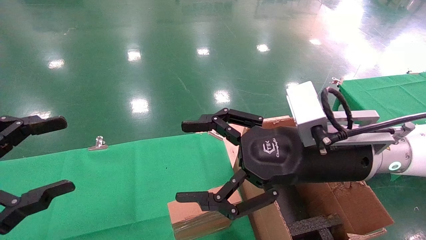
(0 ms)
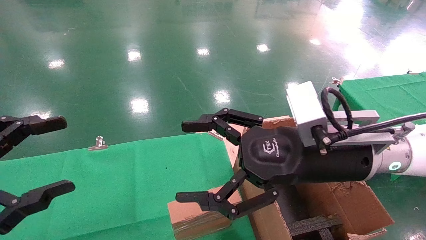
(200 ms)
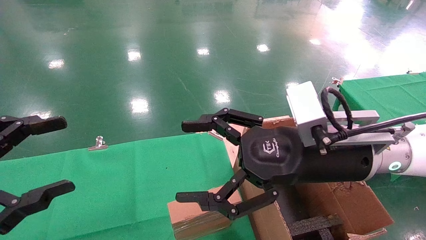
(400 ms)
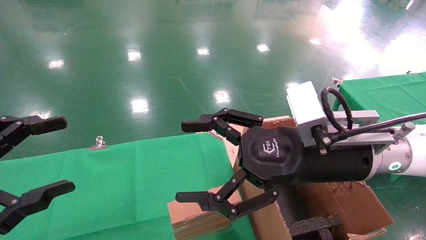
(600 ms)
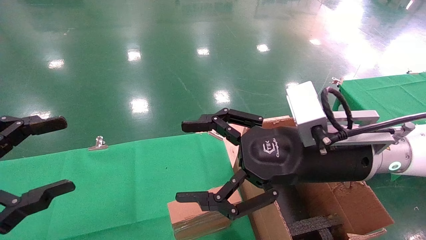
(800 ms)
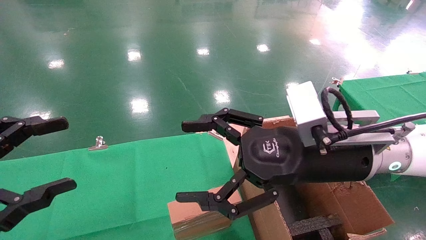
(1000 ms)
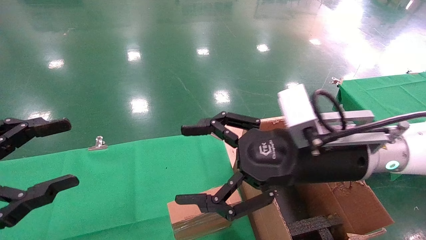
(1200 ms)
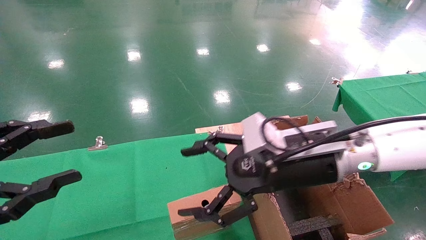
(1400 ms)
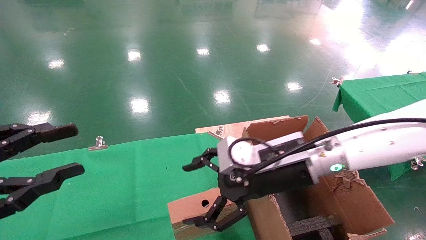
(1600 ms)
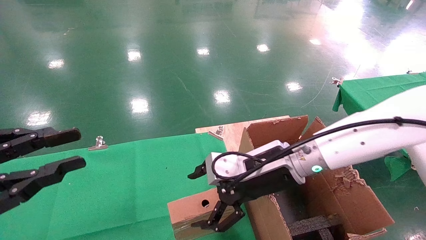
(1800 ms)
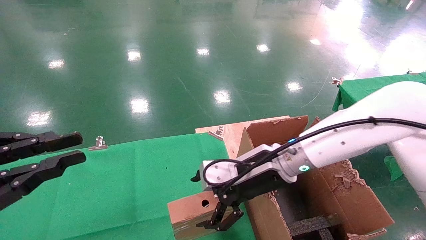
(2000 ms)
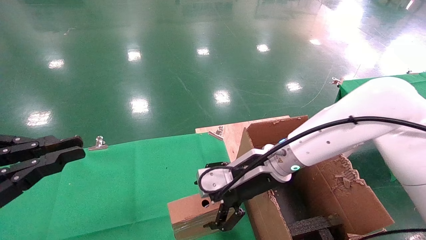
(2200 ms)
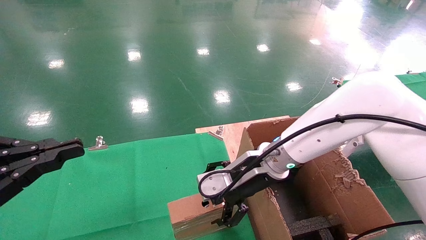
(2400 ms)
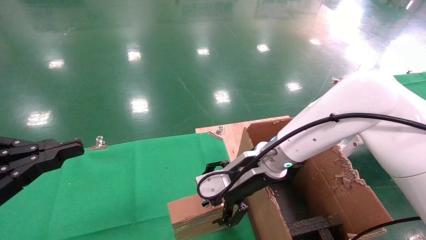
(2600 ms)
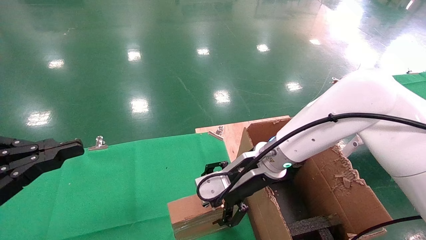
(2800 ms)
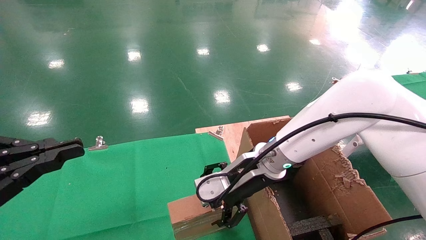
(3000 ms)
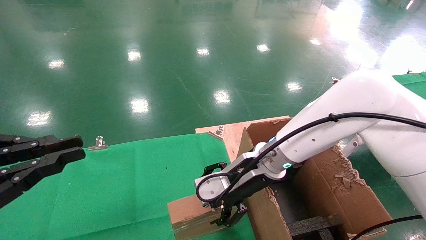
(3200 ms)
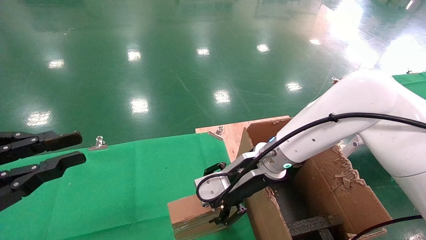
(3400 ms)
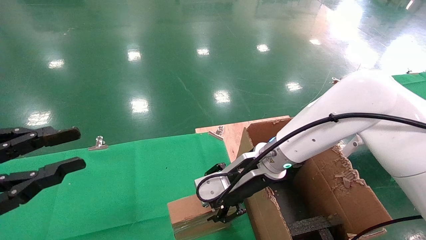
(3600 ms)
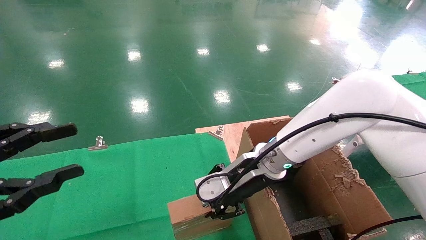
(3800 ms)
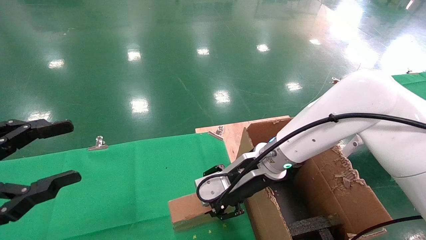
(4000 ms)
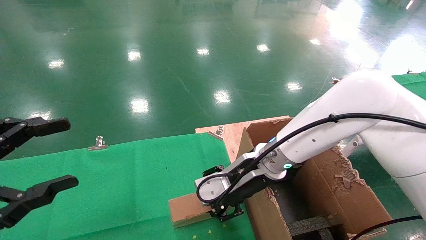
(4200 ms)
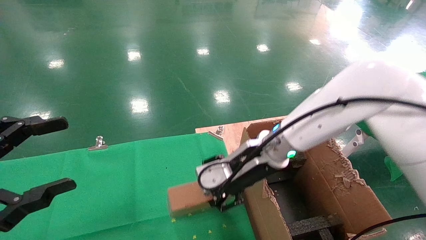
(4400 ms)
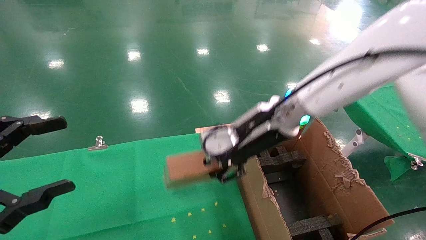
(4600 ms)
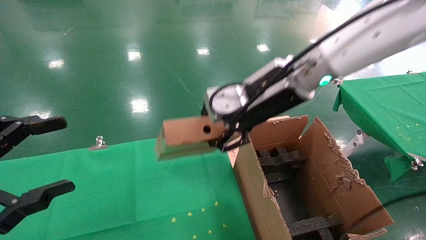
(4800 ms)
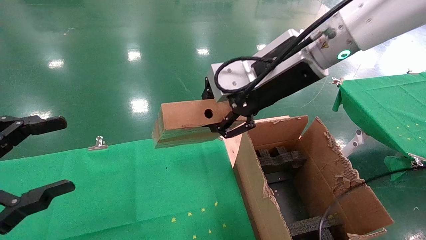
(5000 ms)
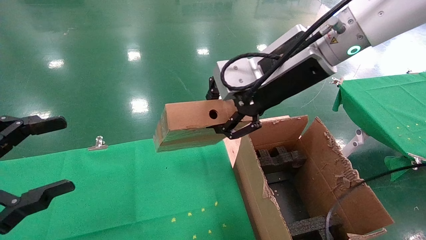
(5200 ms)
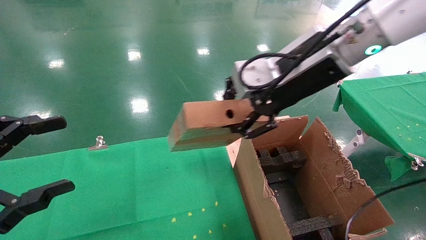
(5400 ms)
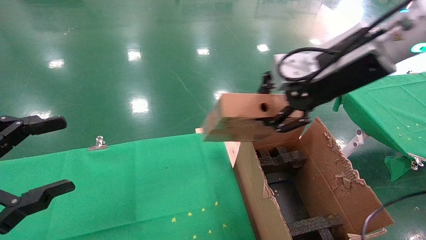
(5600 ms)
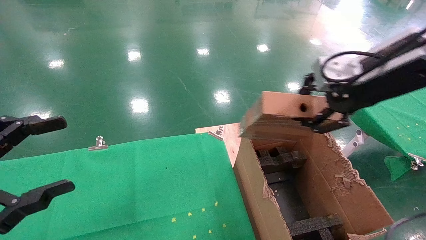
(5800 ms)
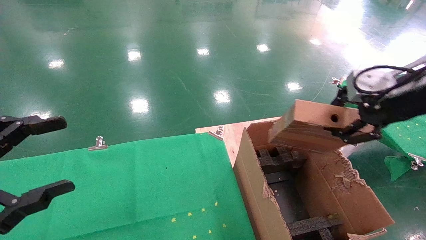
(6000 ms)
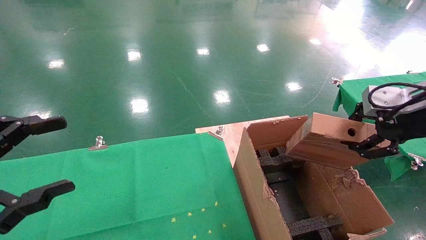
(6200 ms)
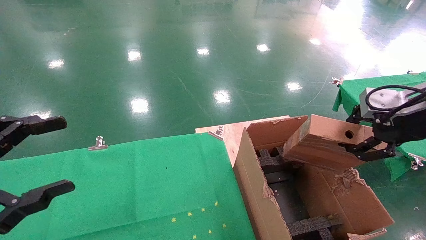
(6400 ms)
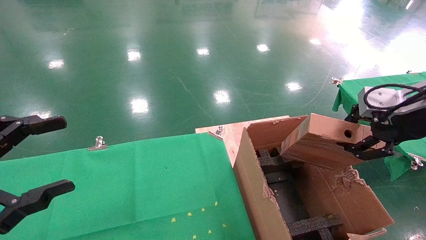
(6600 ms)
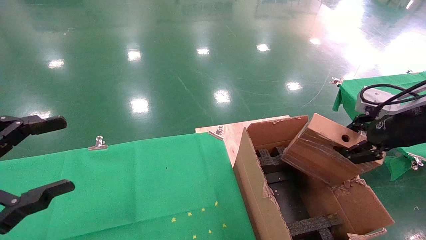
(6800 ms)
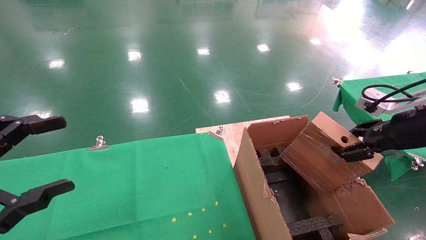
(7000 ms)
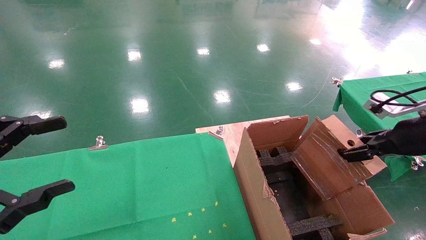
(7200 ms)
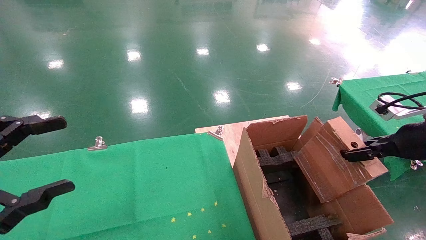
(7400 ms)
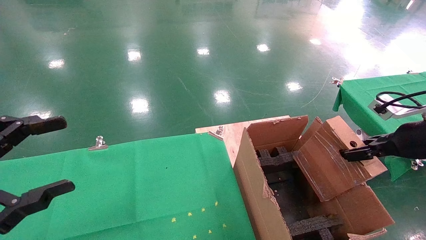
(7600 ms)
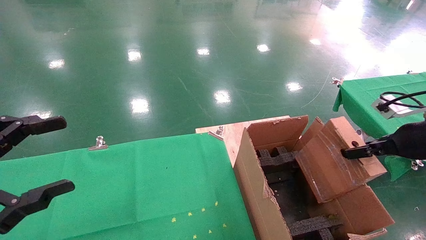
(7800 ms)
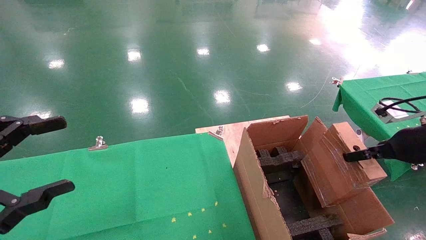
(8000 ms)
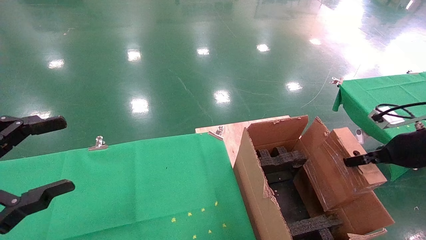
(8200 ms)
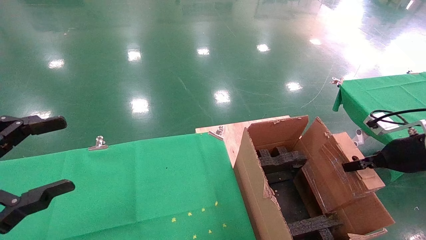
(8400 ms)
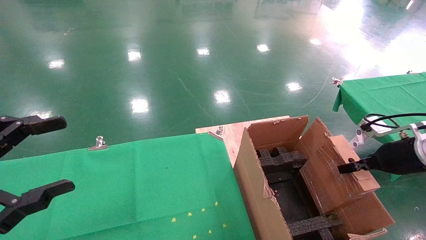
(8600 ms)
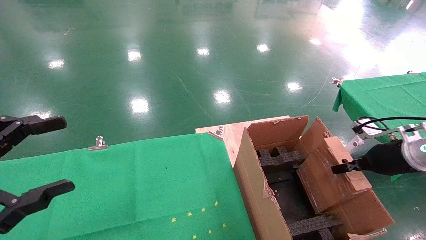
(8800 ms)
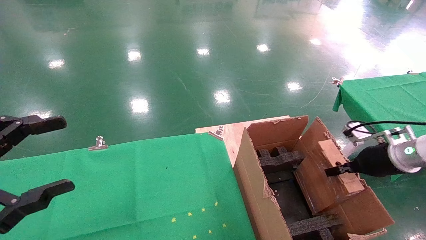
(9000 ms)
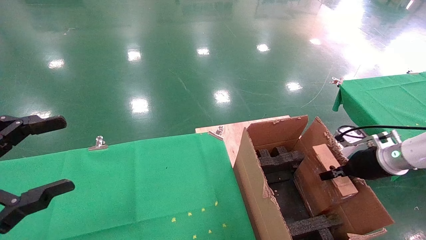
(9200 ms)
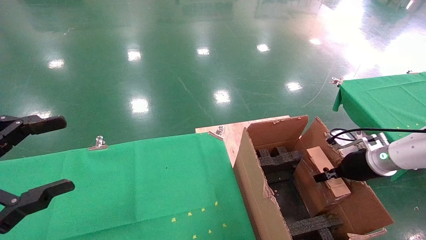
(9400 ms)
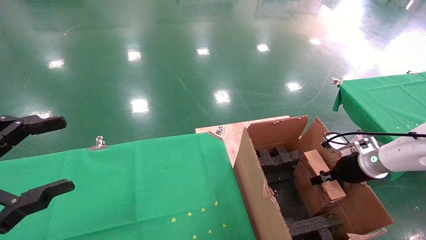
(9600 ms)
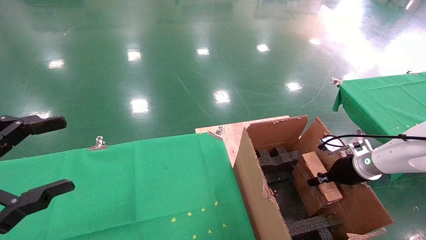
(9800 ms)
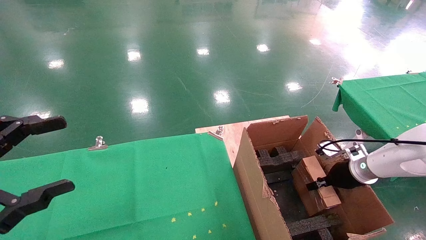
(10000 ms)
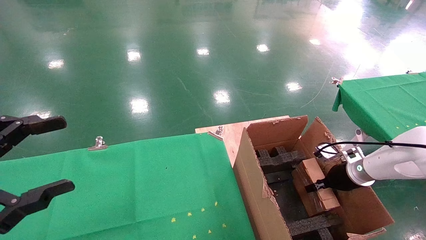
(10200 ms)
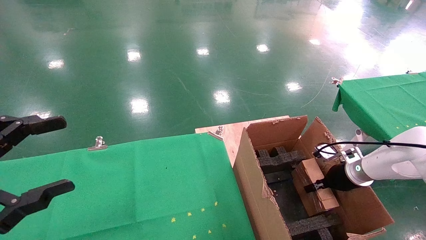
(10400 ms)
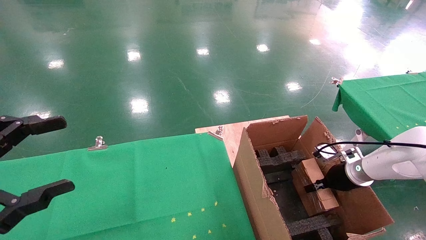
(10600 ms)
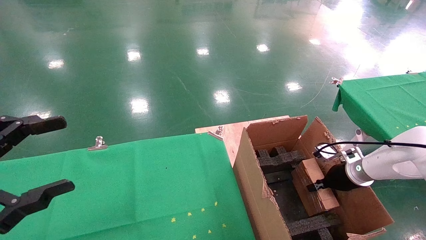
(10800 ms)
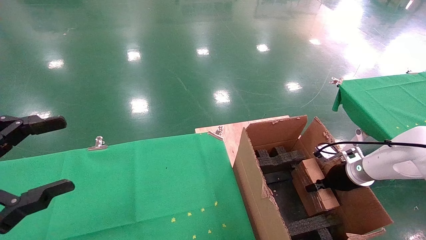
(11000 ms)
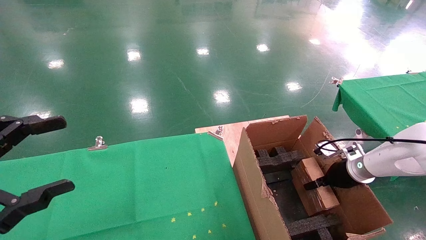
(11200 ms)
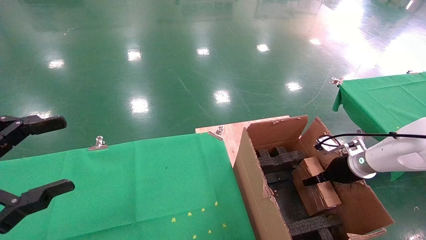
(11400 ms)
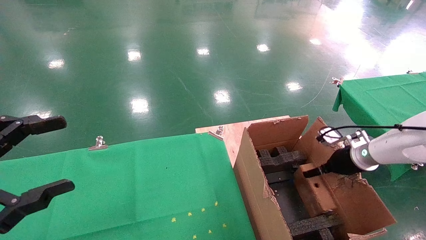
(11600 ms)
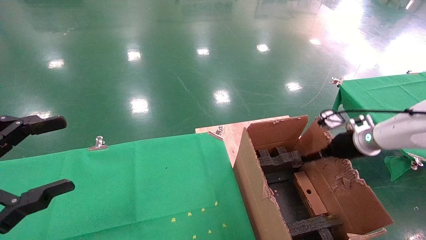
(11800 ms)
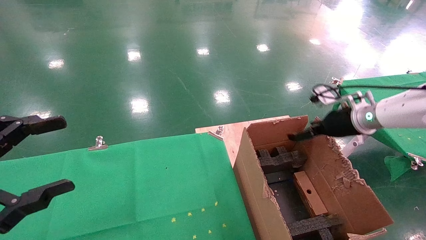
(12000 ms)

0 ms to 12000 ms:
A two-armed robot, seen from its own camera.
Task of the whole recording: using a robotic arm to pick up a cardboard box and palace it the carton.
Step, 1400 ms to 3600 ms: Pick up the mouse and the power cord paper box.
Step, 3800 ms to 11800 ms: Place the mouse and the power cord paper box into the container.
0 ms to 1600 ms: The right gripper goes approximately 5 cm forward, while the left gripper closes up.
1600 ms to 3000 ms: The right gripper moves forward, about 5 cm. Meanwhile the left gripper closes.
3000 ms to 4400 ms: The left gripper opens its fingers, while the right gripper closes its fingers.
4400 ms to 6000 ms: The right gripper is displaced to the right, upward and backward by roughly 30 cm.
6000 ms to 7600 ms: The right gripper travels downward and to the right by about 15 cm.
7600 ms to 9000 ms: The right gripper is displaced downward and forward by some 10 cm.
9000 ms to 10400 ms: The right gripper shifts some 10 cm downward and forward.
10400 ms to 12000 ms: The right gripper is displaced upward by roughly 15 cm, and opens up.

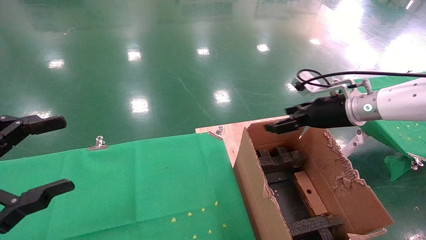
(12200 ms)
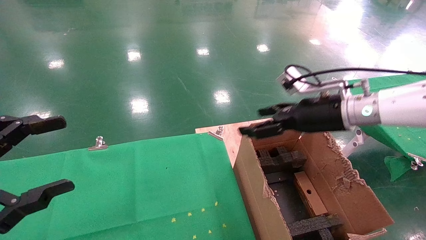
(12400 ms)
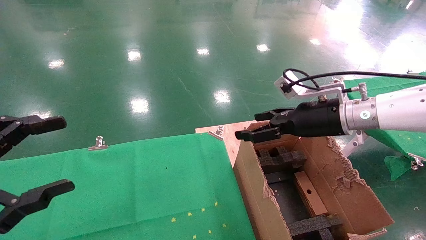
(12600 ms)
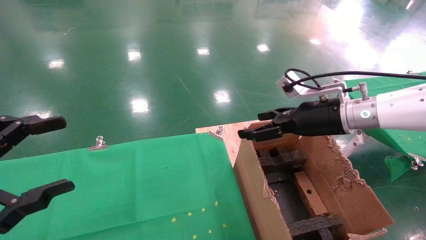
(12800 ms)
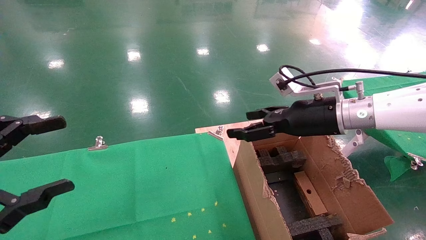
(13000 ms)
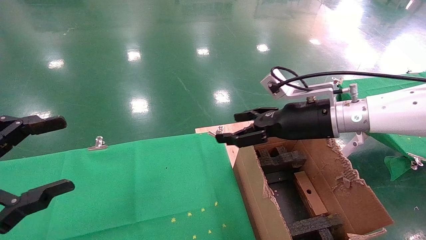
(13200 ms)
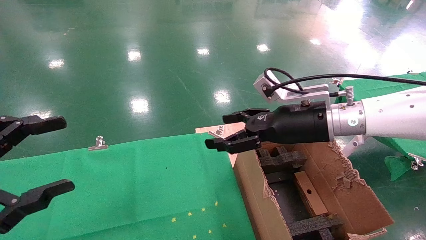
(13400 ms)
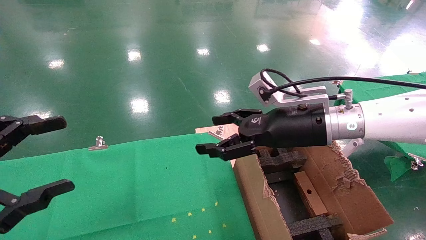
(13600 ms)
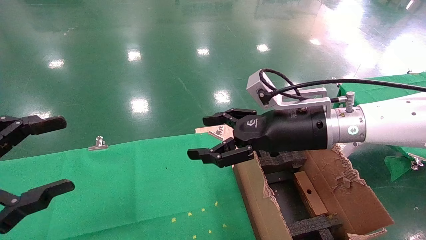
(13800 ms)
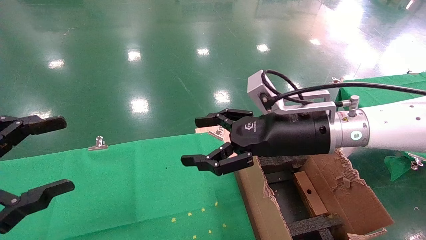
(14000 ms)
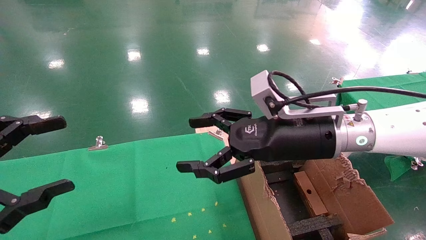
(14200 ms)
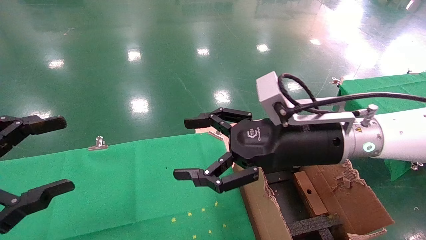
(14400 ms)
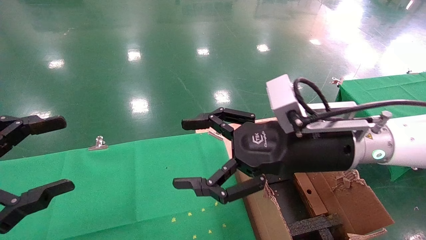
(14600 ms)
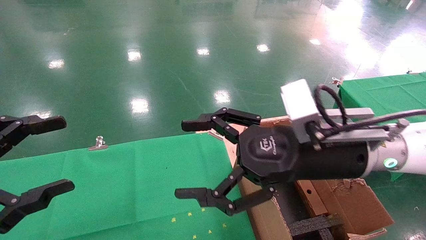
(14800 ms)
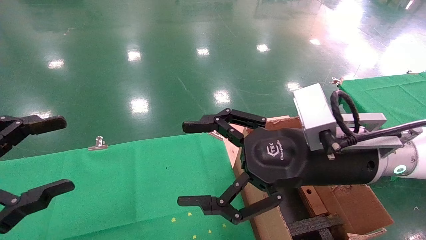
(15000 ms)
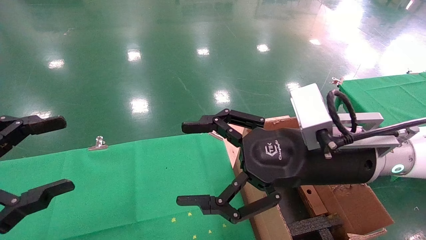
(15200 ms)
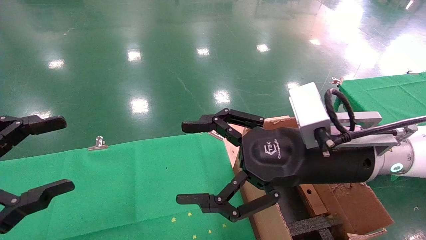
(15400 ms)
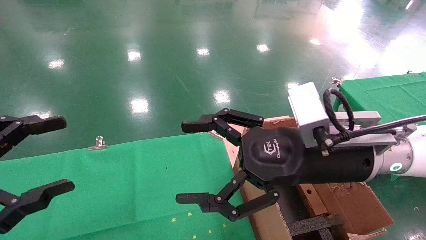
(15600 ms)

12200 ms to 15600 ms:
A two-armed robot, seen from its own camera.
Task of the whole recording: using a robotic arm to pick up a cardboard box and palace it the carton.
12200 ms to 13800 ms: The right gripper moves to the left and backward, about 15 cm.
13800 ms to 15600 ms: The right gripper moves backward, roughly 10 cm.

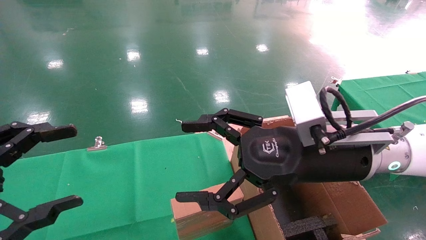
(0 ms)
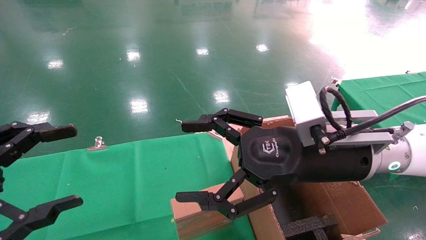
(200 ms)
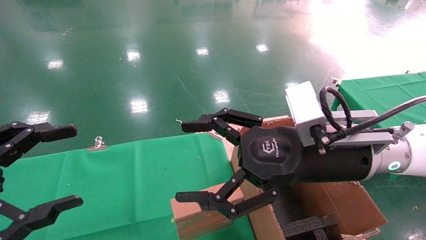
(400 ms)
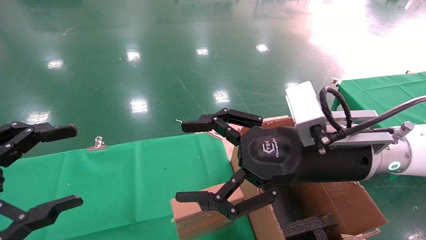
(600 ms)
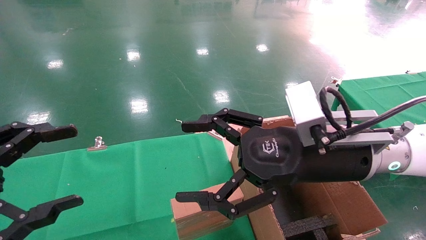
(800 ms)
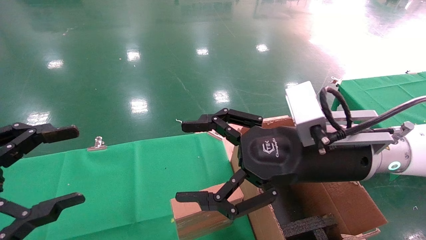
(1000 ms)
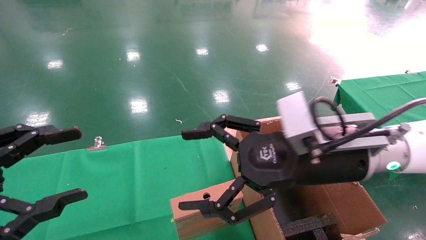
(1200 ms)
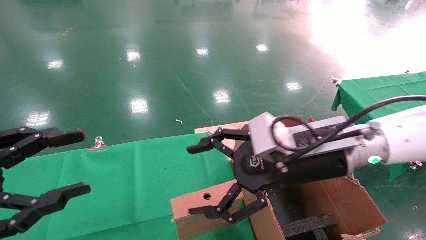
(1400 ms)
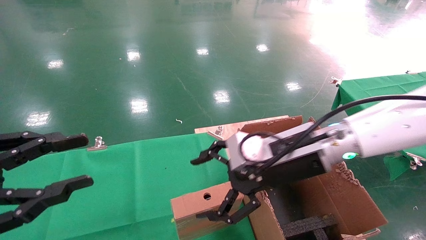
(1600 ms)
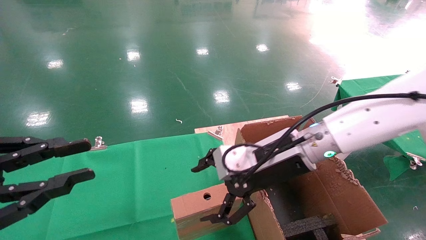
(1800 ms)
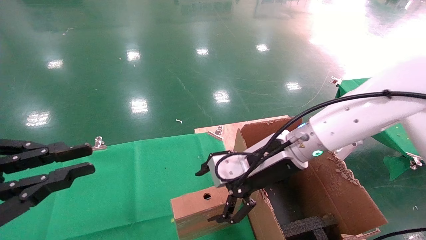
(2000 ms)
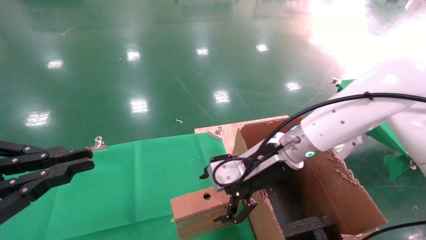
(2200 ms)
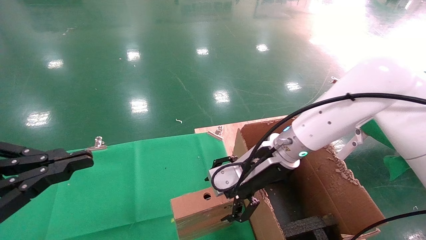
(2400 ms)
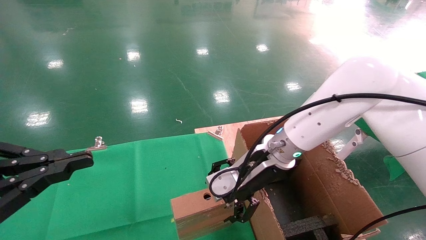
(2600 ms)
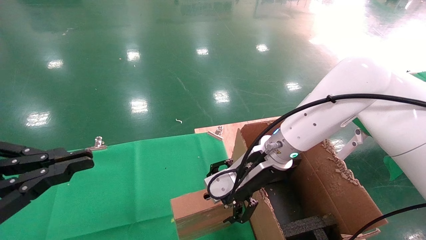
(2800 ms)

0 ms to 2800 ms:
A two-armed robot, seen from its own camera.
Task of the whole recording: using a robotic arm to pick up a cardboard box and palace it the carton.
1400 ms to 2800 ms: The left gripper closes. Meanwhile the right gripper travels forward by roughly 10 cm.
